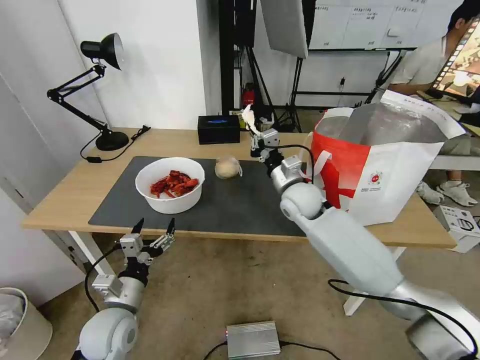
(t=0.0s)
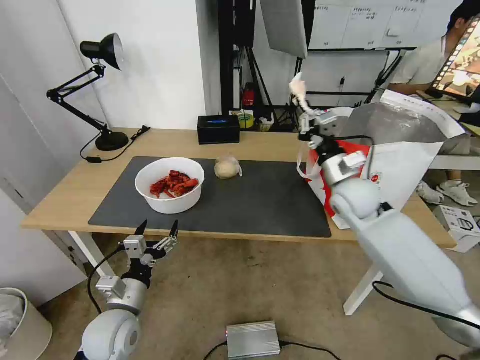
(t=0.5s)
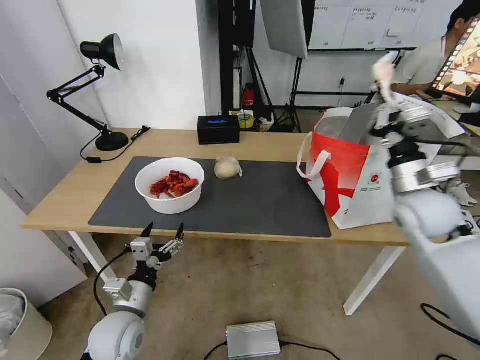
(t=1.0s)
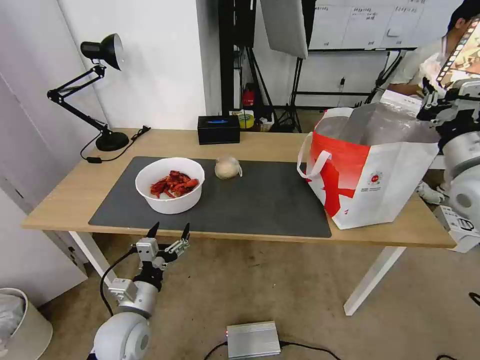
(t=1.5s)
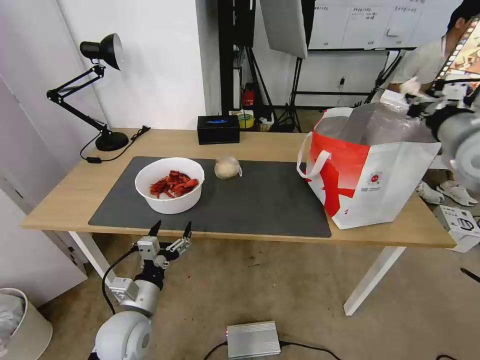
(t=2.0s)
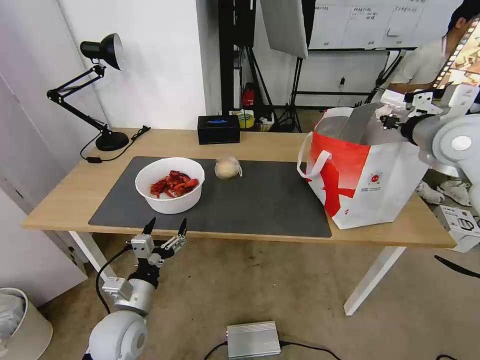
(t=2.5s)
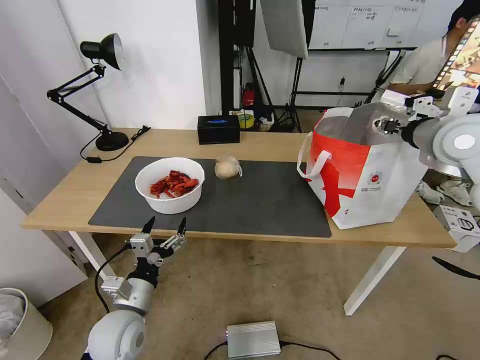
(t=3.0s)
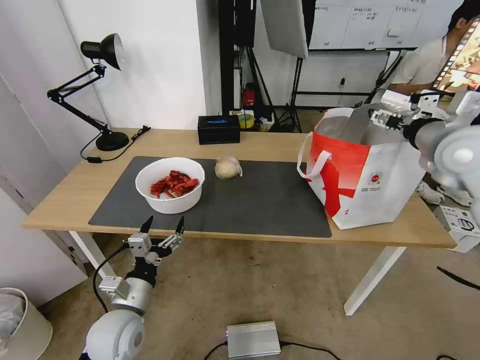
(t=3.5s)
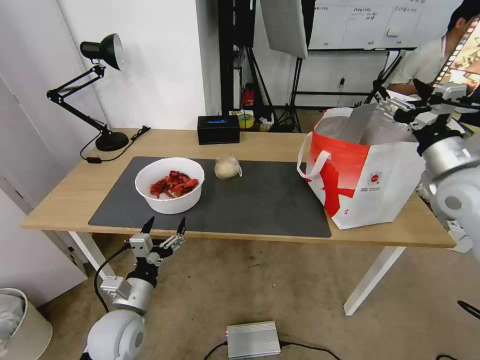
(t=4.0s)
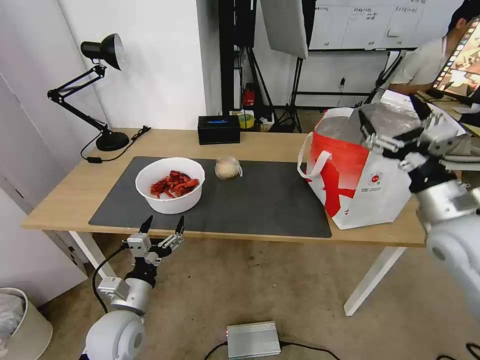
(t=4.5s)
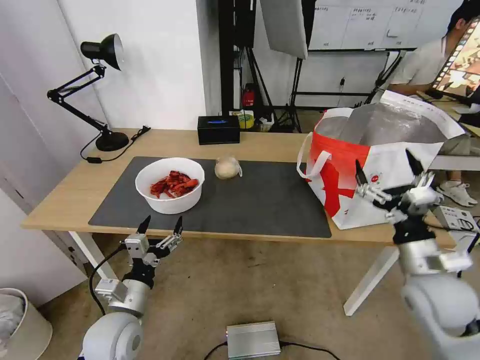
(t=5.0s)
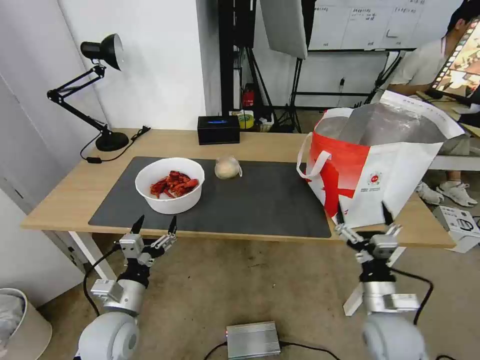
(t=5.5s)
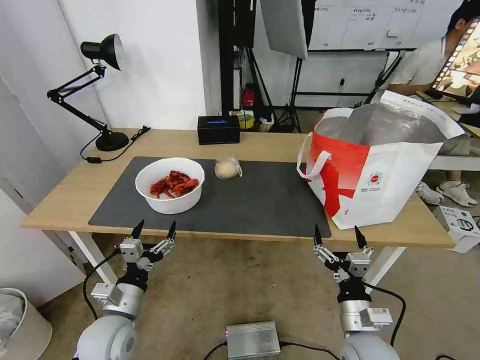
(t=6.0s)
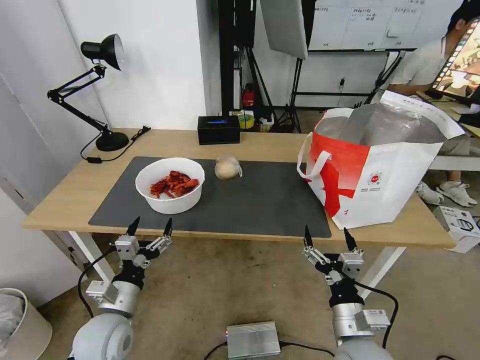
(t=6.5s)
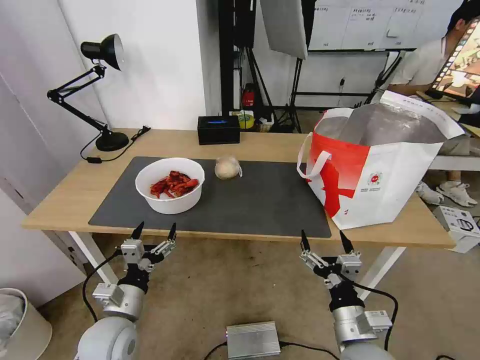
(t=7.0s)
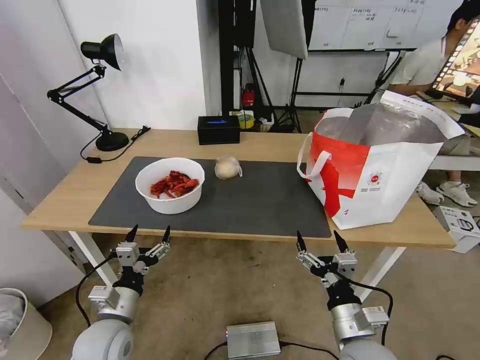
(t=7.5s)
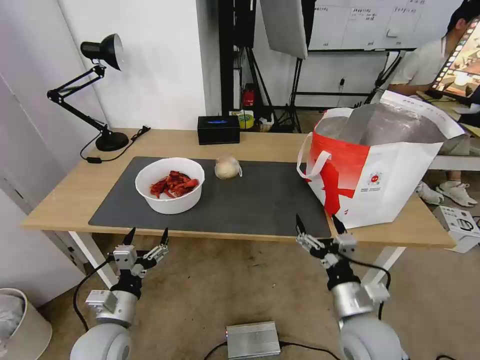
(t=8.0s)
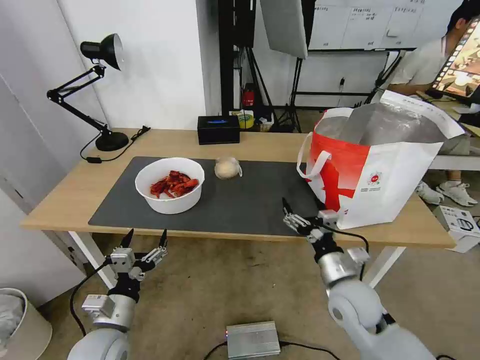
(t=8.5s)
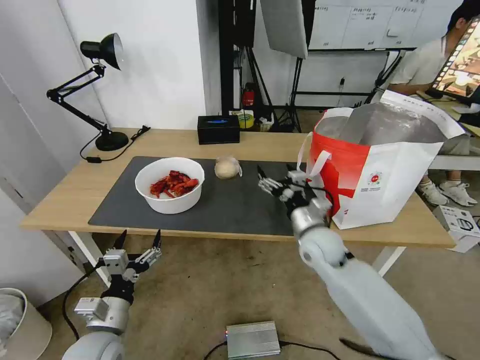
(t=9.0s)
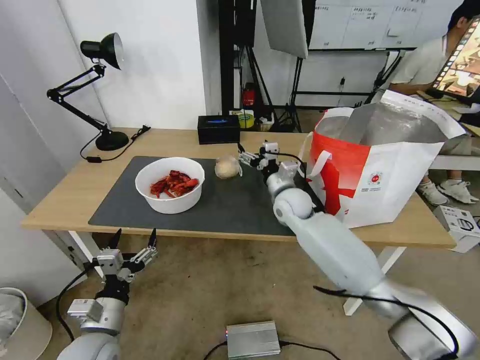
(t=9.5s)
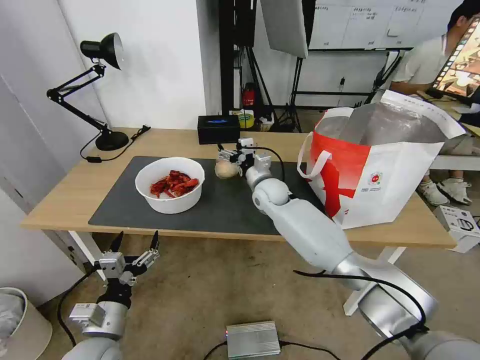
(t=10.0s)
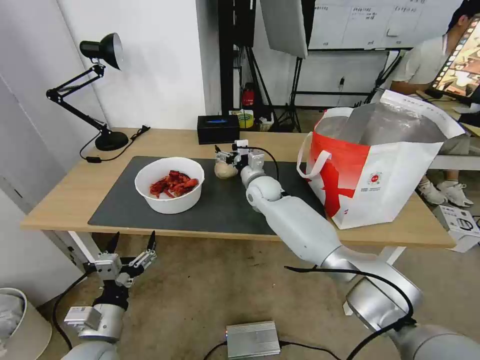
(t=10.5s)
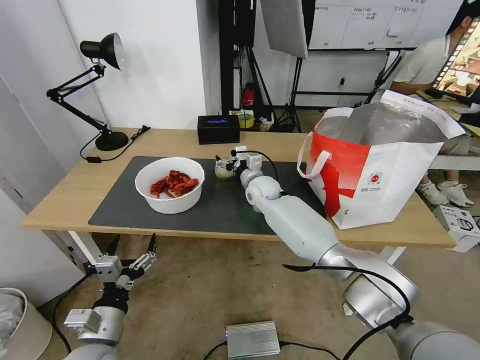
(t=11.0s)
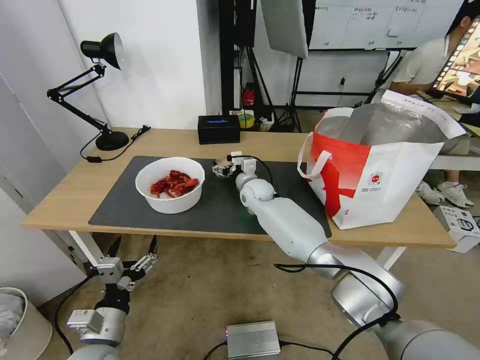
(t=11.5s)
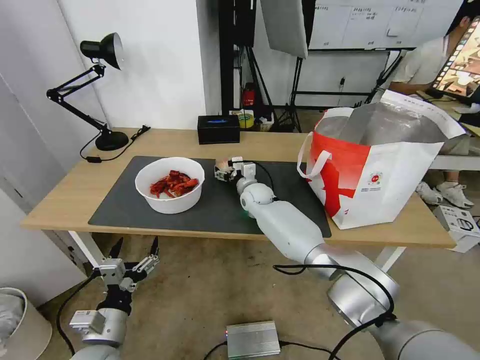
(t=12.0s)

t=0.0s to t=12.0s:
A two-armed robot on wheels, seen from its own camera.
Task of the whole recording: Pick up the trash from the table and place it into the takeout bag.
t=0.0s to t=2.0s: The right gripper is displaced to the right and upward by roughly 30 cm.
t=2.0s to t=4.0s: The right gripper shifts about 5 cm downward, and opens.
t=4.0s to t=6.0s: The right gripper shifts some 35 cm downward, backward and to the left.
t=6.0s to t=8.0s: The right gripper moves some 5 cm.
t=8.0s to t=10.0s: The right gripper moves forward and to the left, some 40 cm.
t=10.0s to t=12.0s: The right gripper moves some 5 cm.

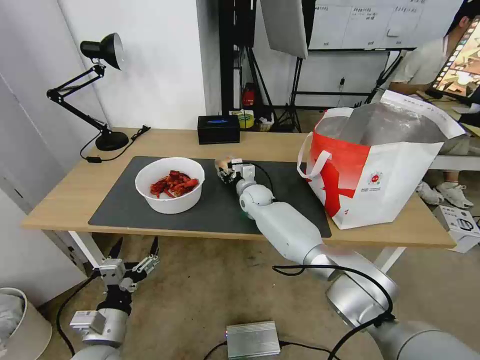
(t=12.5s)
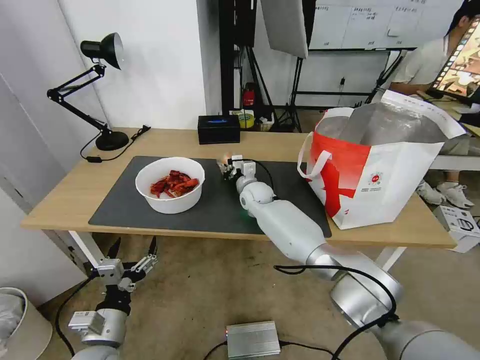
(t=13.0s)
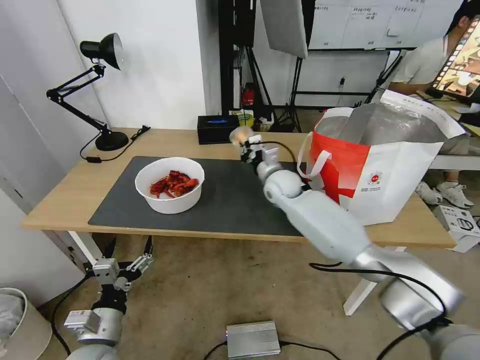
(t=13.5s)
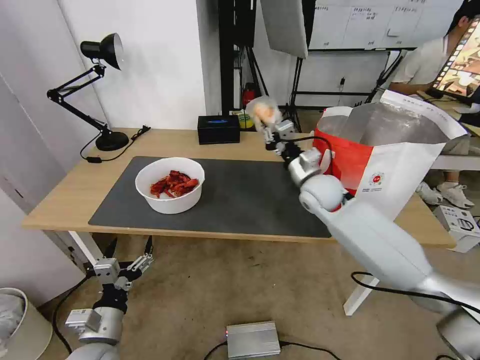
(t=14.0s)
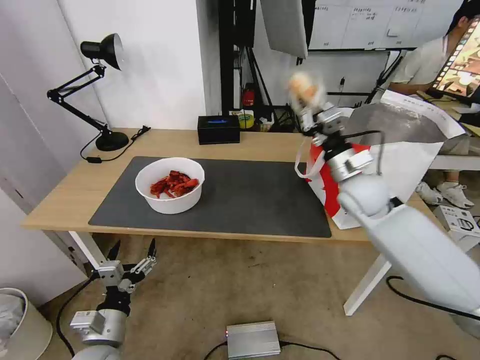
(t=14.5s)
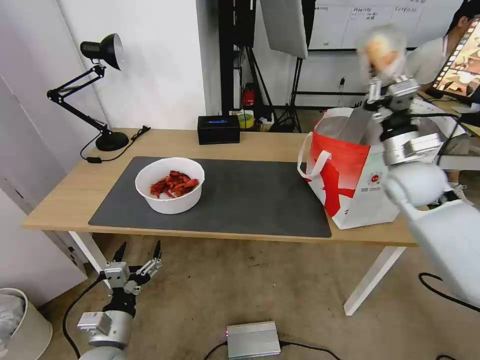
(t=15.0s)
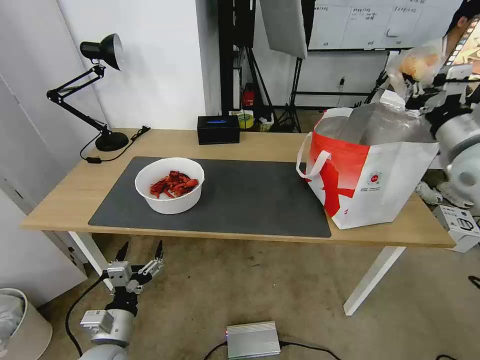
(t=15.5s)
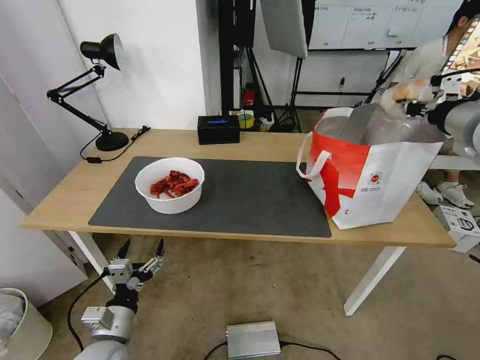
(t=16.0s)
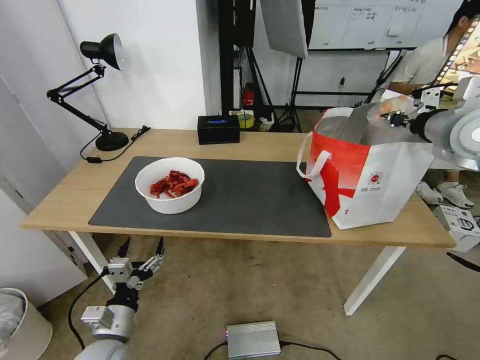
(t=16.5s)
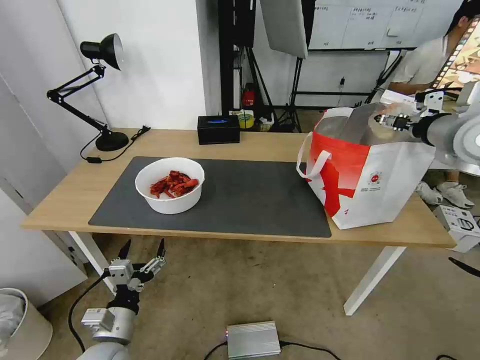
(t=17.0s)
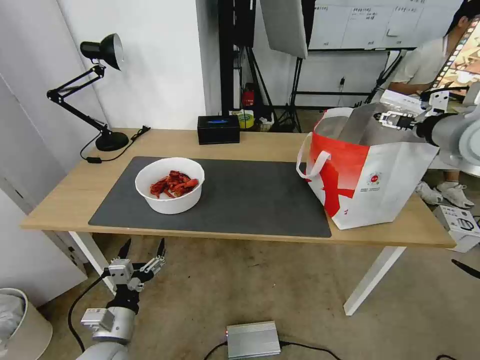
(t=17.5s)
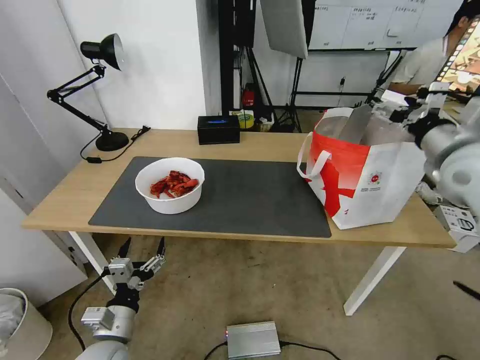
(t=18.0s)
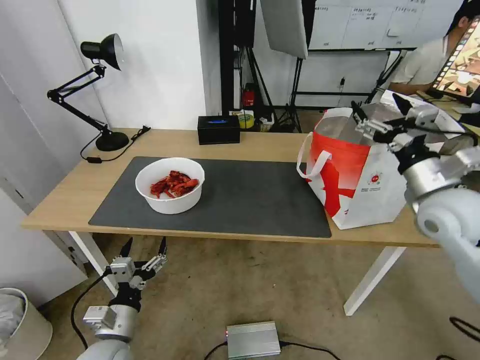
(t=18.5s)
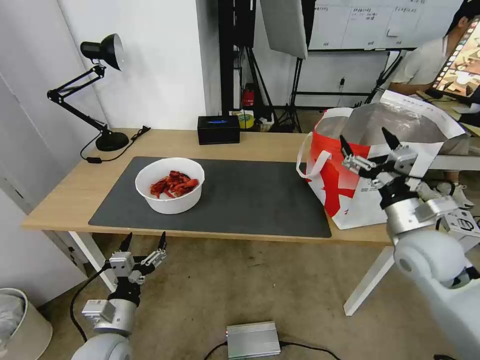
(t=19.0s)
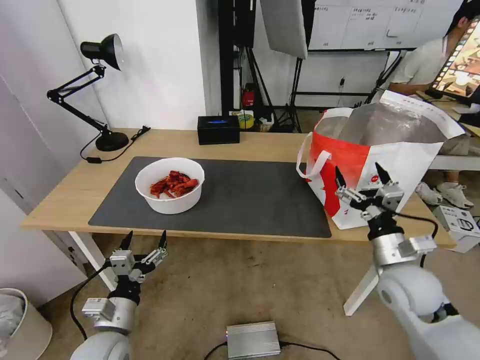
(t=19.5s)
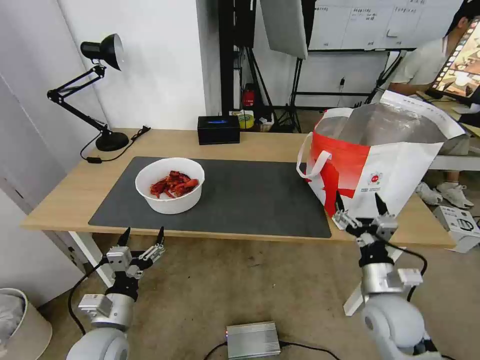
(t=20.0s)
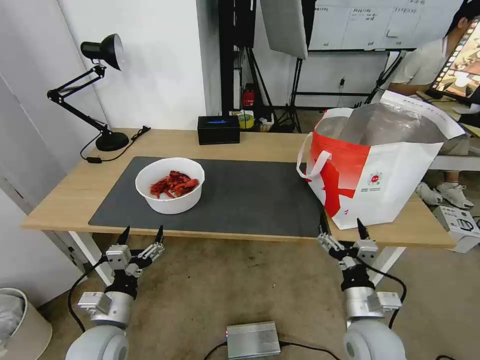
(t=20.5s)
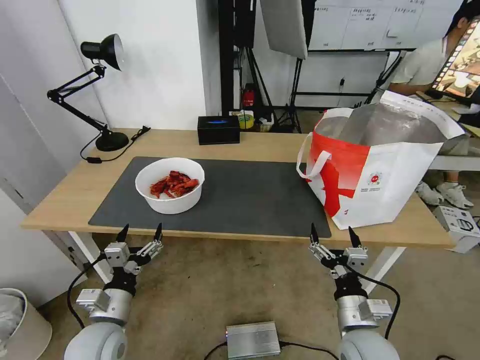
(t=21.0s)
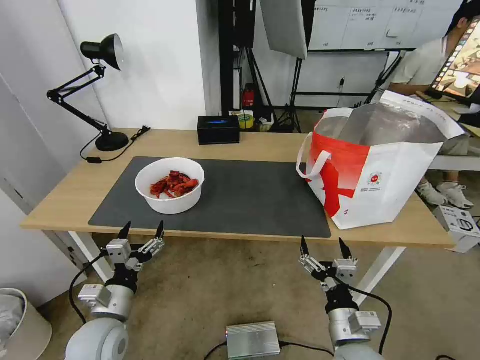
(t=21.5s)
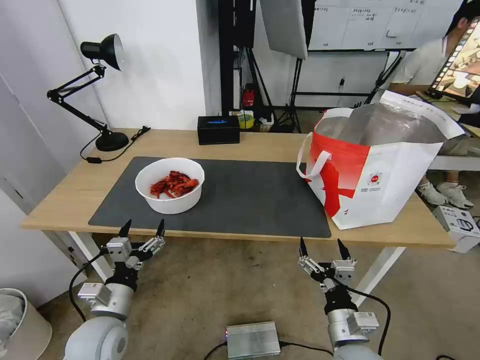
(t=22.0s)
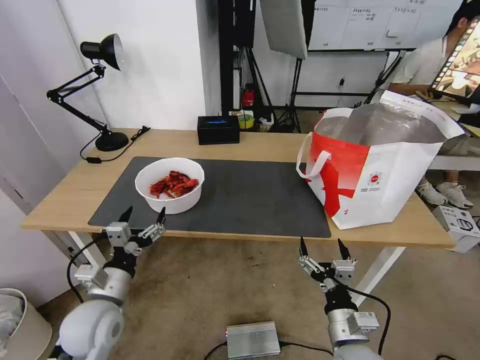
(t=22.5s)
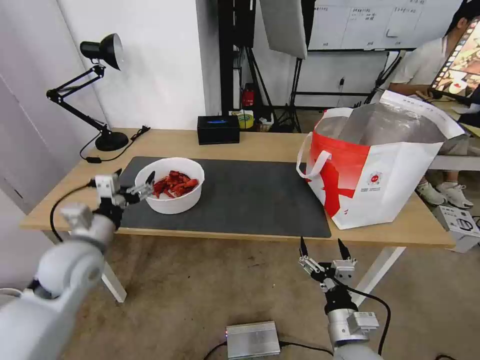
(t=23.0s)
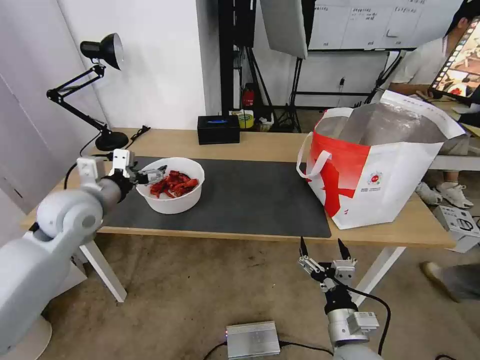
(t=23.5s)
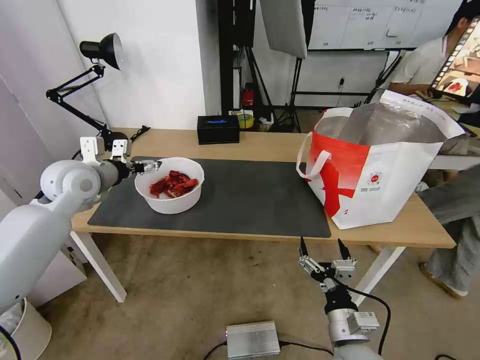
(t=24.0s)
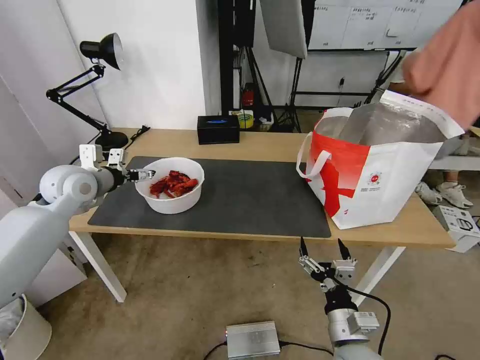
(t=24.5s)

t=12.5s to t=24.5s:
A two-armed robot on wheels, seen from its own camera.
Task of the whole recording: Pick up the trash from the table and place it into the takeout bag.
t=12.5s to t=14.5s: The right gripper travels to the right, upward and backward by approximately 30 cm, and closes its fingers.
t=14.5s to t=16.5s: The right gripper shifts some 20 cm upward and to the right.
t=16.5s to t=18.5s: The right gripper heads downward and backward, covering roughly 15 cm, and opens.
t=18.5s to t=20.5s: The right gripper shifts roughly 30 cm downward, backward and to the left.
t=20.5s to t=22.5s: The left gripper ends up roughly 5 cm from where it was; the right gripper changes place by roughly 5 cm.
t=22.5s to t=24.5s: The left gripper moves forward and upward, some 25 cm.

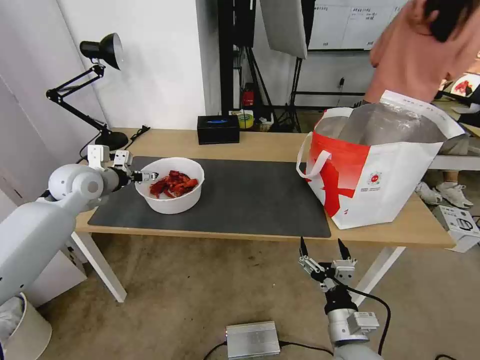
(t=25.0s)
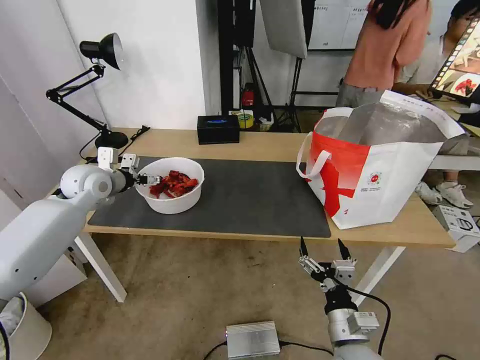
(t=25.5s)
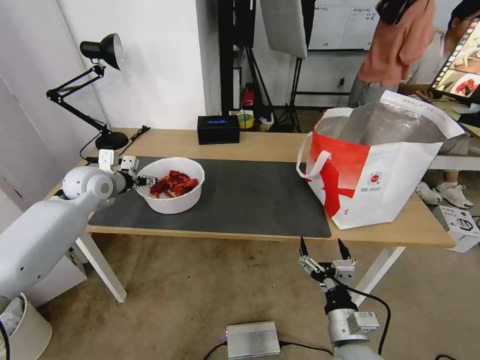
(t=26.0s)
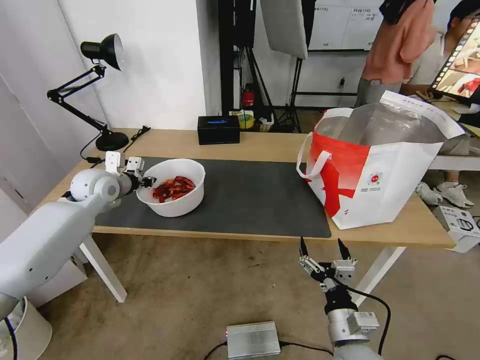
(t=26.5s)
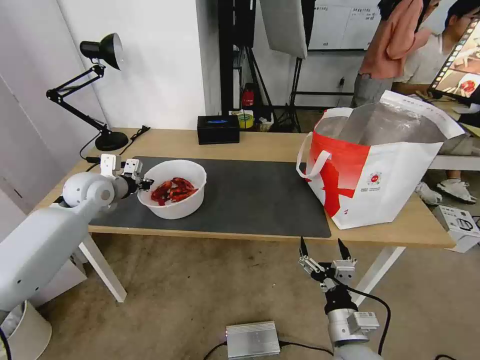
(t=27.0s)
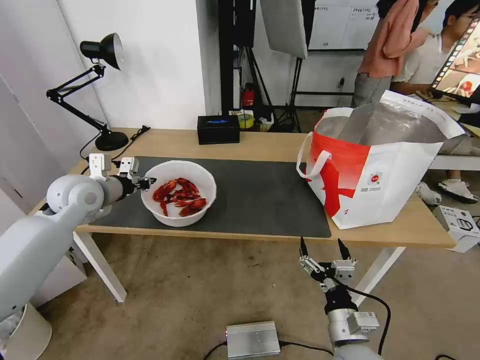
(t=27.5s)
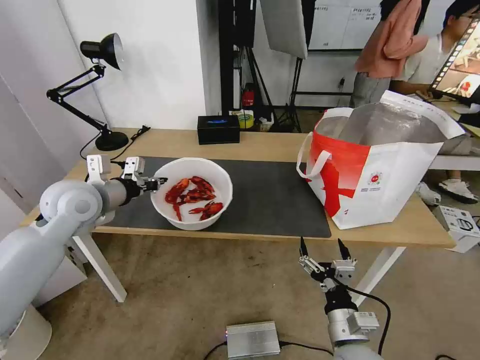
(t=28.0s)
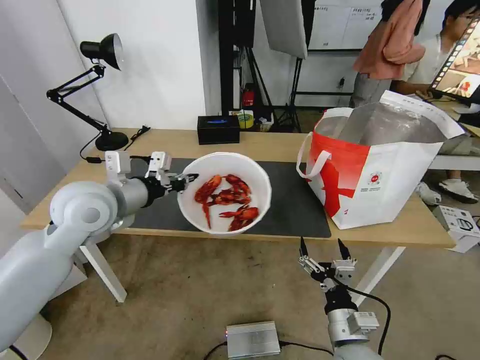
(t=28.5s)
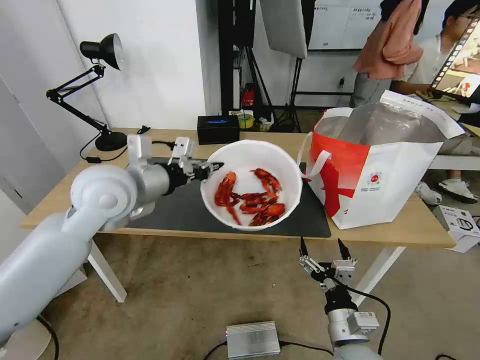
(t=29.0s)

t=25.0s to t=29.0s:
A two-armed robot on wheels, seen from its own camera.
Task of the whole recording: Pick up the trash from the table and place it into the takeout bag.
t=25.0s to t=27.0s: The left gripper closes its fingers.
t=27.0s to t=29.0s: The left gripper moves to the right, backward and upward, roughly 20 cm.
